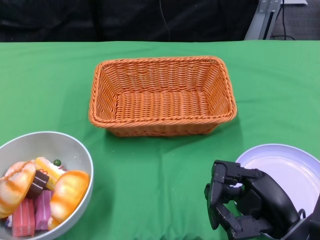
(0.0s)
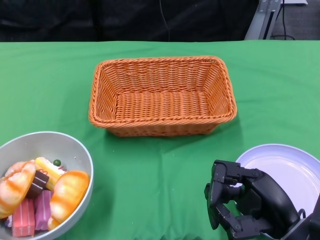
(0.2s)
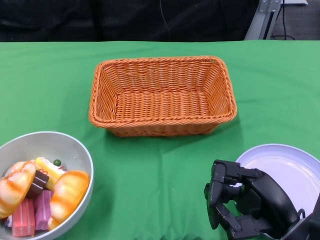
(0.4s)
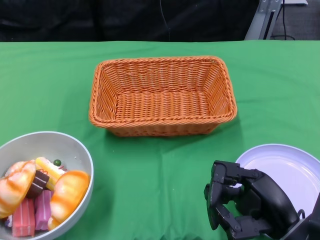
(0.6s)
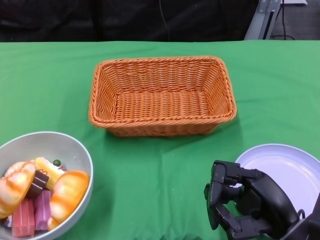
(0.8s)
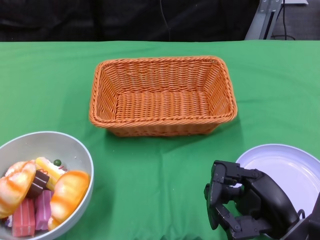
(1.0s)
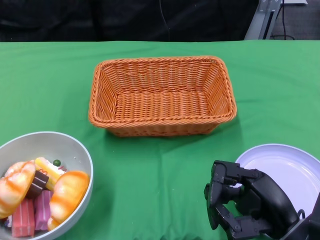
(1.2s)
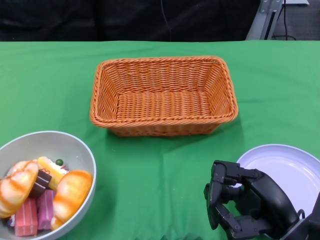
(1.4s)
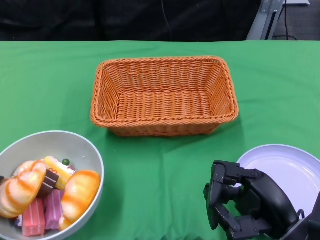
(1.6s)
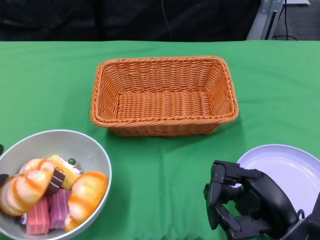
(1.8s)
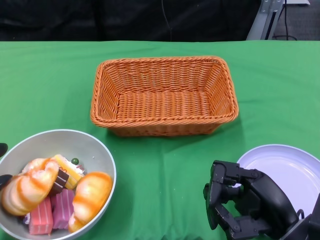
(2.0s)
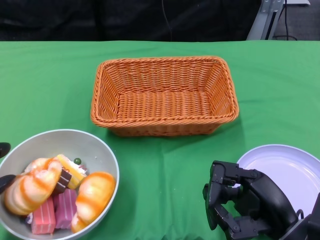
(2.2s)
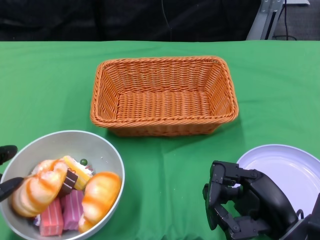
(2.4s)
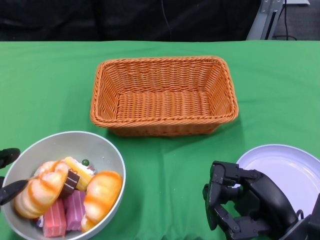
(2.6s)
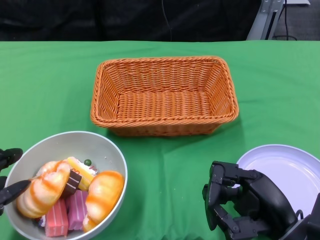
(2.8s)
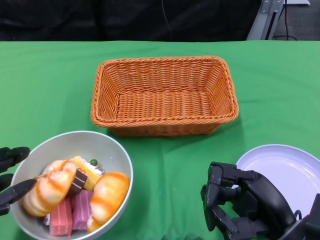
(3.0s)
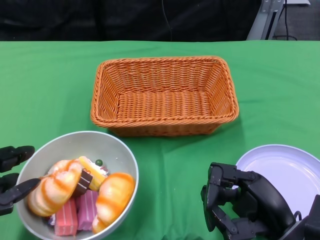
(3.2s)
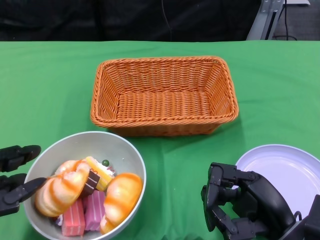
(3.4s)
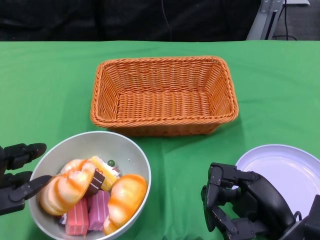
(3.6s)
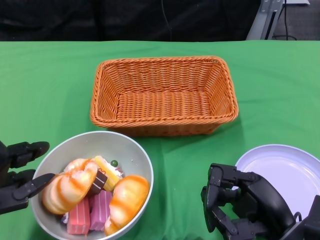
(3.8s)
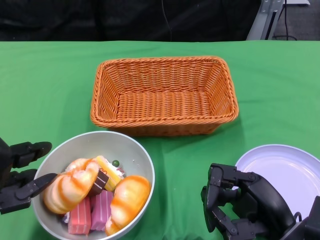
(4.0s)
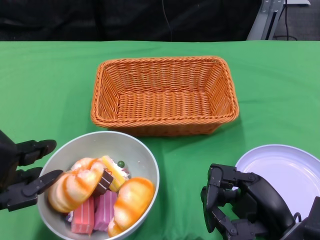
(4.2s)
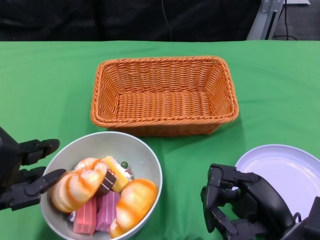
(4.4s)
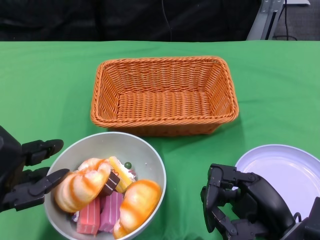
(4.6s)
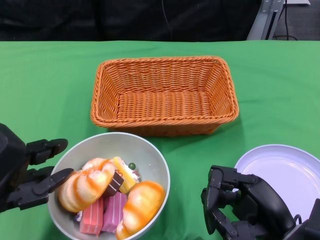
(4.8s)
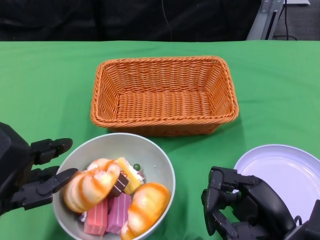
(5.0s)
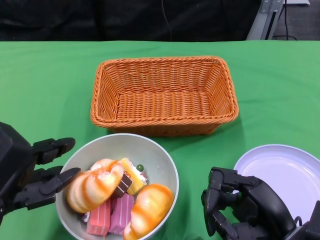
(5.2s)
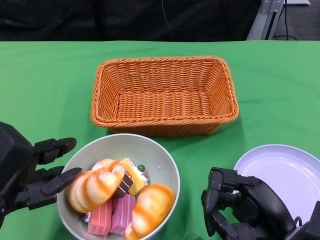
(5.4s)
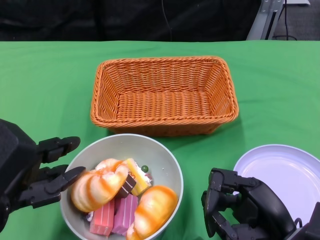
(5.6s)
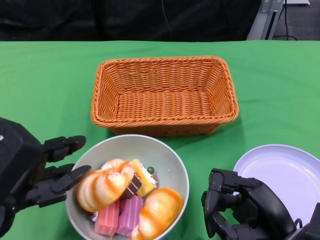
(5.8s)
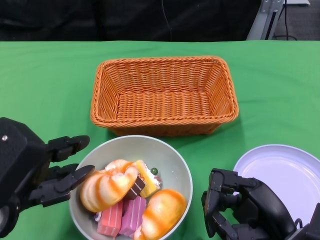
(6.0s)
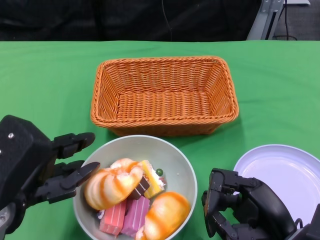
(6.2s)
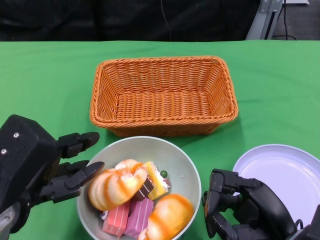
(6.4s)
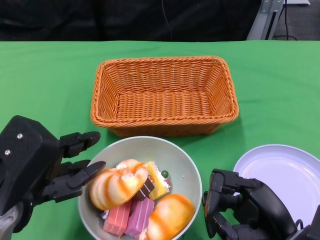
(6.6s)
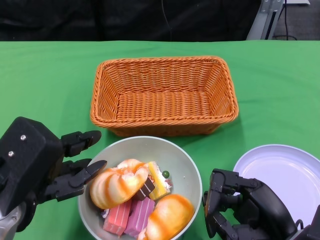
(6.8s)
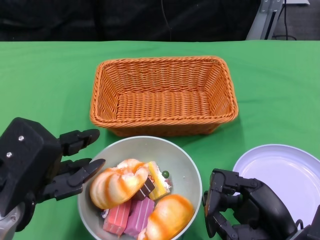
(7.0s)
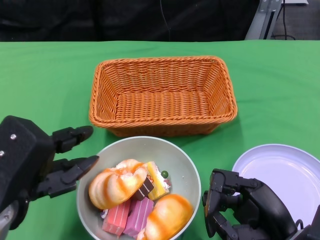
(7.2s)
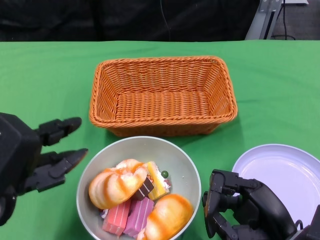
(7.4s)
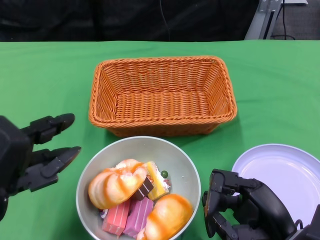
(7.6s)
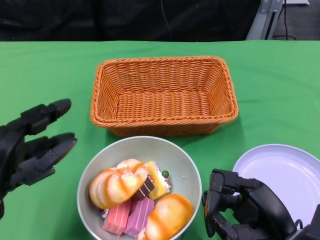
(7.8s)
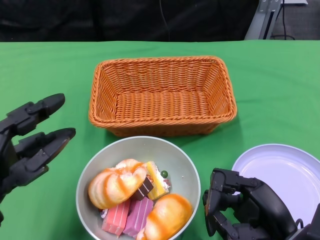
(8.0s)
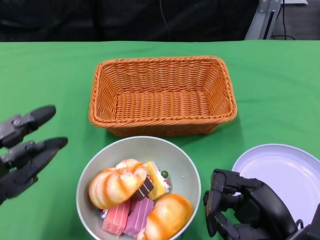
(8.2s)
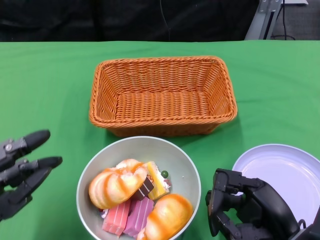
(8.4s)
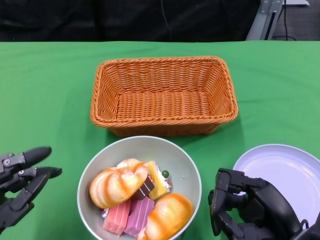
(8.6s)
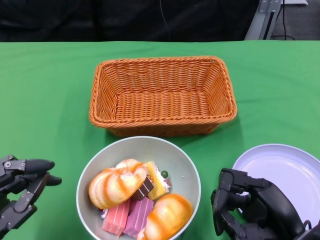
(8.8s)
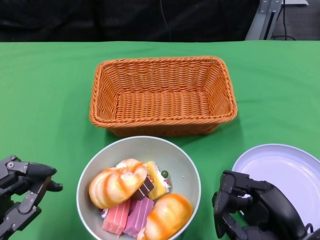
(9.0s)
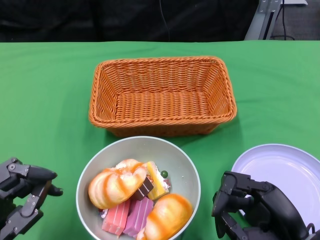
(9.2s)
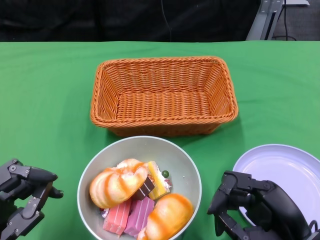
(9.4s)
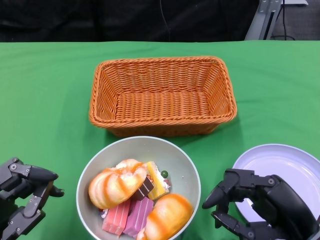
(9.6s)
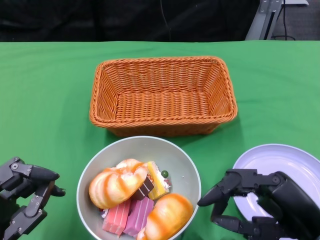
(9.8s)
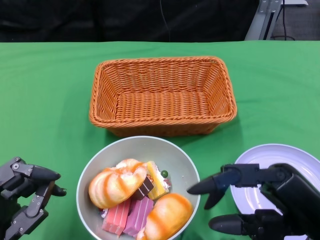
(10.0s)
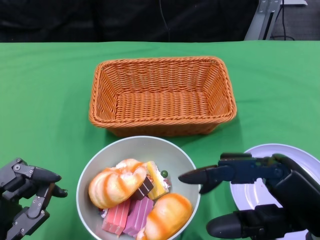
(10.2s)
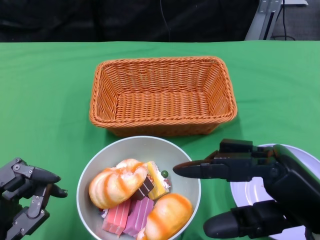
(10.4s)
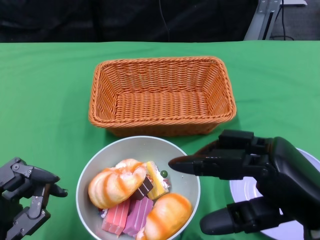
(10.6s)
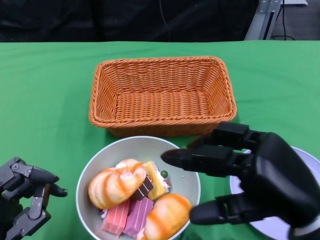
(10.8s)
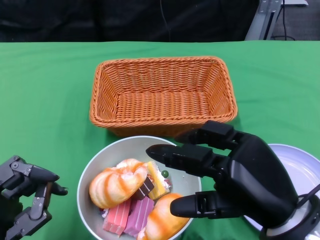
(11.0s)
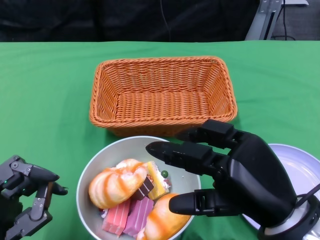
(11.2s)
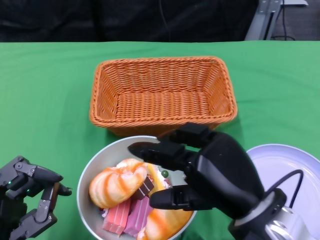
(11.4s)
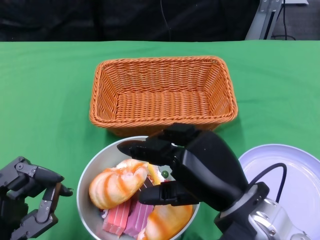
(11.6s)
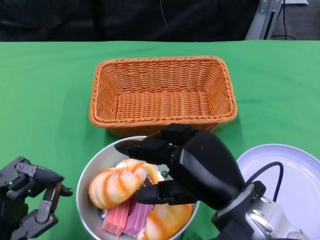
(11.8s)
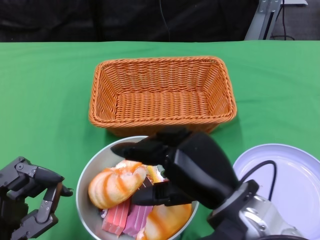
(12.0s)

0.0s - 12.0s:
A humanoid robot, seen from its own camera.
Step, 0.0s - 7.2s: Push the bowl to the center of the table using the left gripper.
1.6s - 3.0s: The hands stay close to where they were, moving slightly.
3.0s - 4.4s: The hands make only small movements.
6.0s - 7.6s: The hands move only a little.
7.6s - 9.0s: The left hand travels downward by approximately 10 cm.
9.0s - 10.4s: The right hand heads upward, covering roughly 10 cm.
10.4s - 12.0s: The right hand moves to the left, roughly 10 cm.

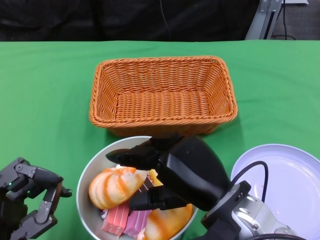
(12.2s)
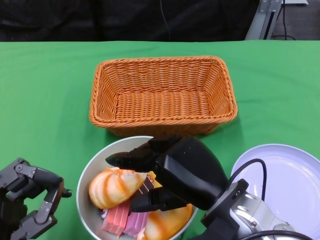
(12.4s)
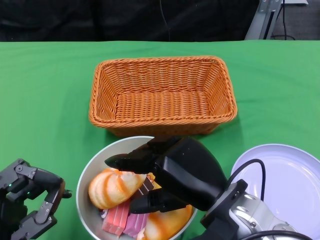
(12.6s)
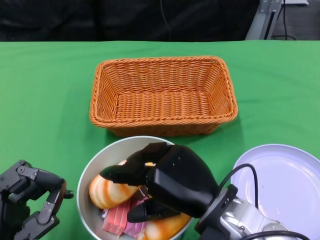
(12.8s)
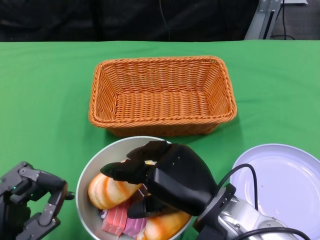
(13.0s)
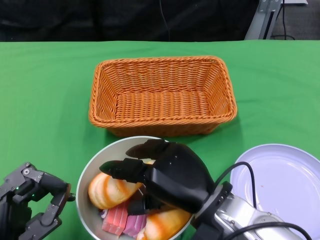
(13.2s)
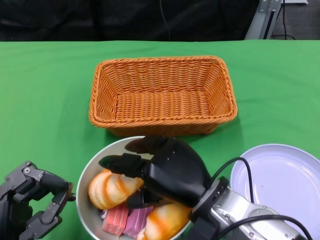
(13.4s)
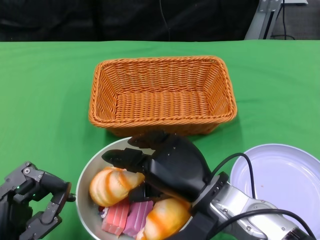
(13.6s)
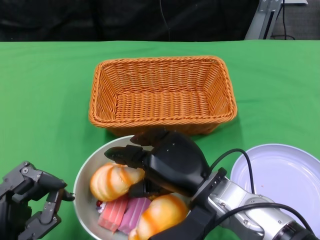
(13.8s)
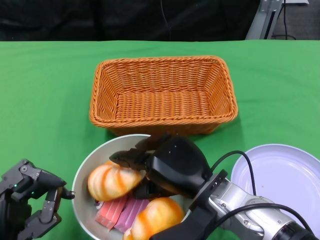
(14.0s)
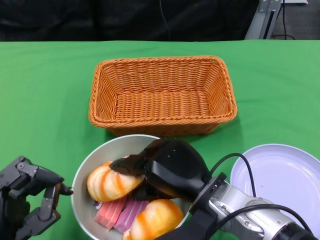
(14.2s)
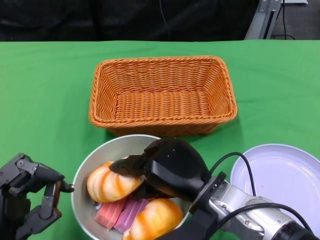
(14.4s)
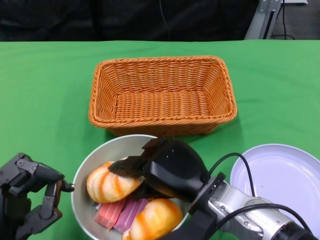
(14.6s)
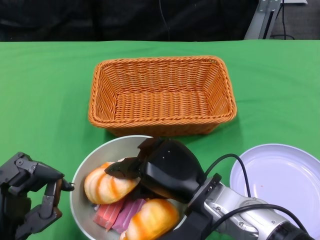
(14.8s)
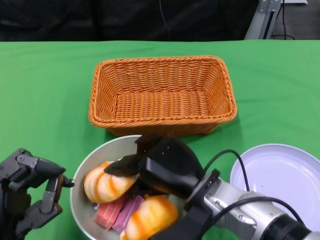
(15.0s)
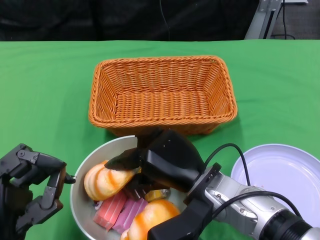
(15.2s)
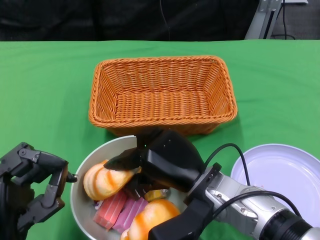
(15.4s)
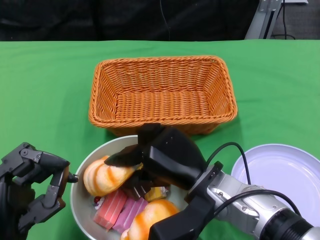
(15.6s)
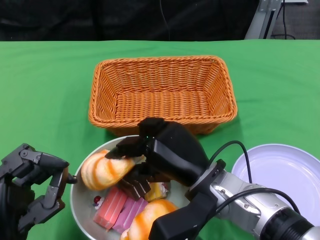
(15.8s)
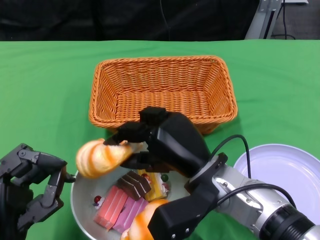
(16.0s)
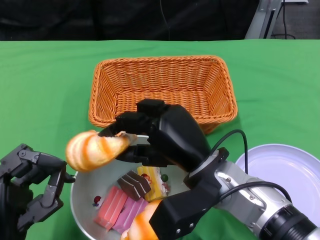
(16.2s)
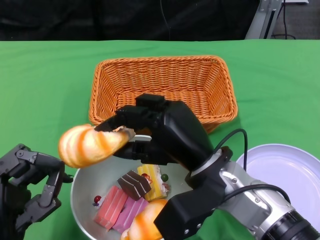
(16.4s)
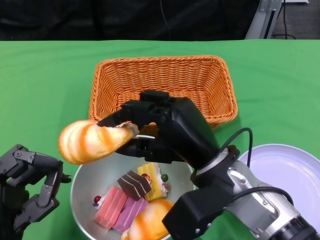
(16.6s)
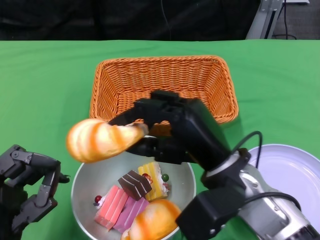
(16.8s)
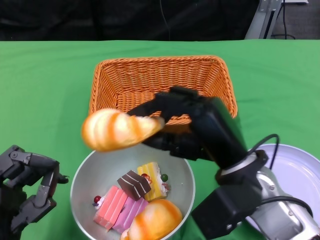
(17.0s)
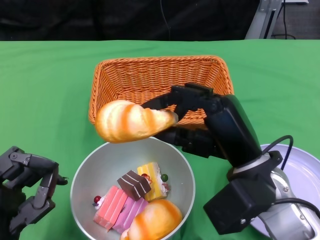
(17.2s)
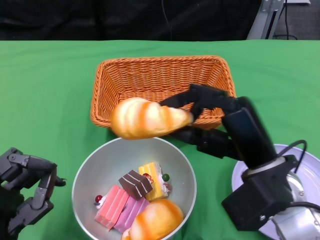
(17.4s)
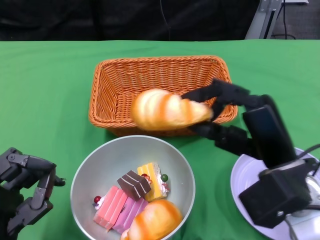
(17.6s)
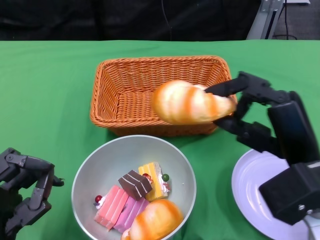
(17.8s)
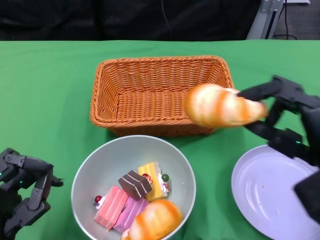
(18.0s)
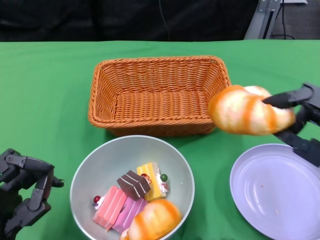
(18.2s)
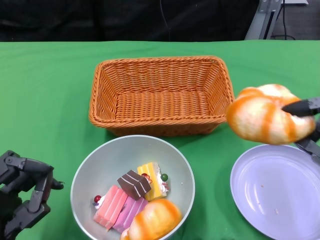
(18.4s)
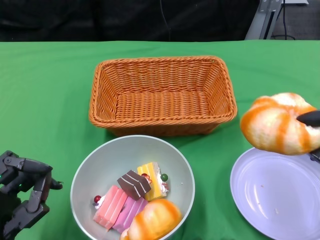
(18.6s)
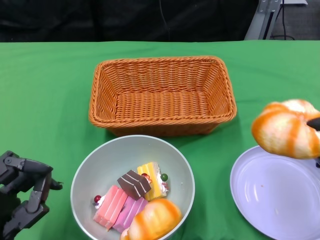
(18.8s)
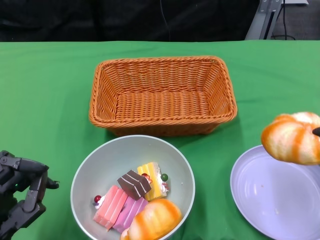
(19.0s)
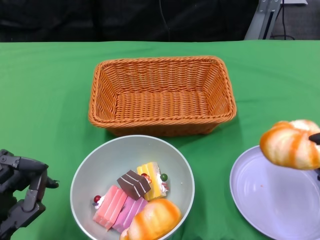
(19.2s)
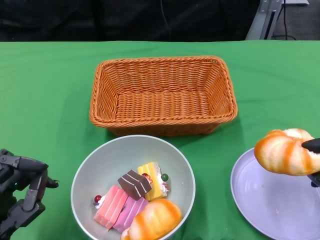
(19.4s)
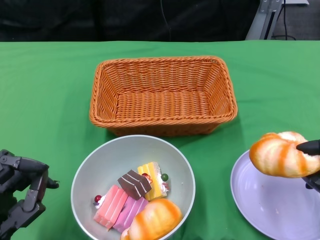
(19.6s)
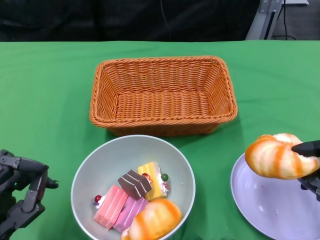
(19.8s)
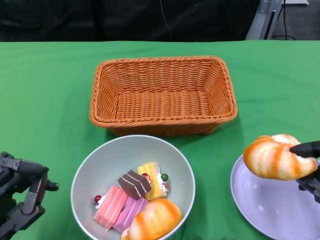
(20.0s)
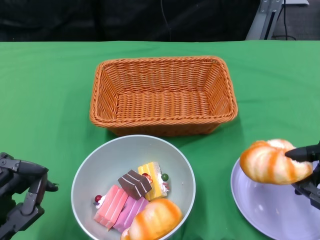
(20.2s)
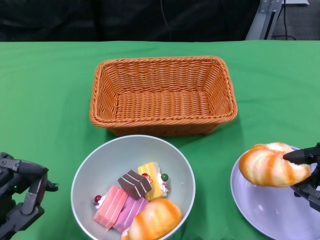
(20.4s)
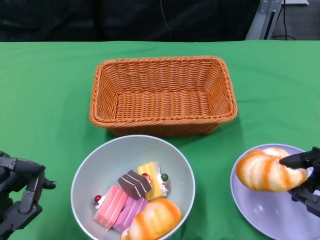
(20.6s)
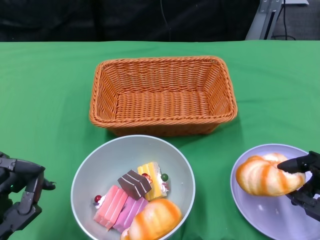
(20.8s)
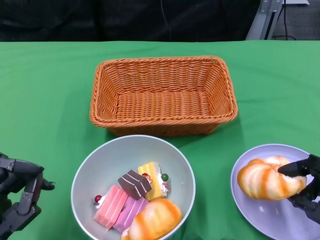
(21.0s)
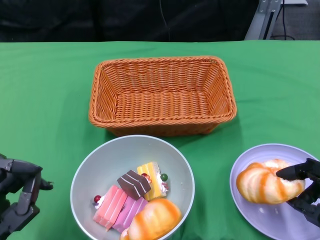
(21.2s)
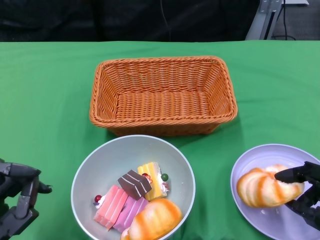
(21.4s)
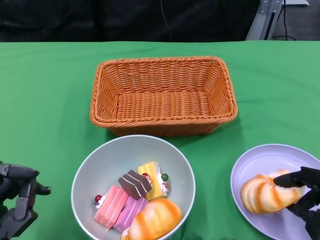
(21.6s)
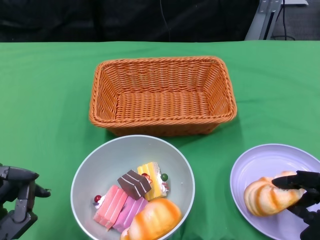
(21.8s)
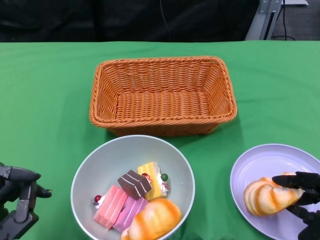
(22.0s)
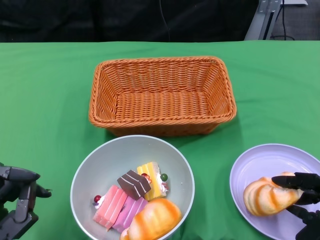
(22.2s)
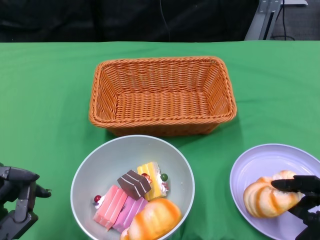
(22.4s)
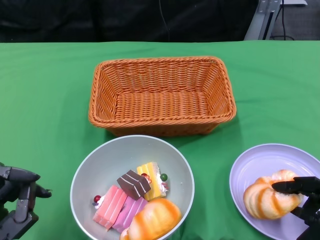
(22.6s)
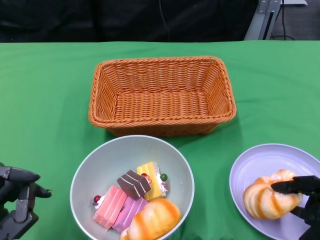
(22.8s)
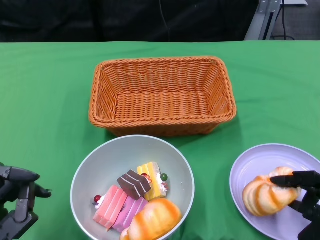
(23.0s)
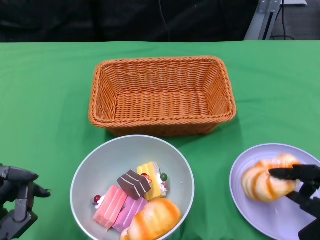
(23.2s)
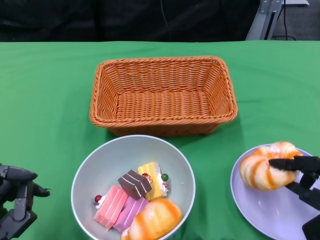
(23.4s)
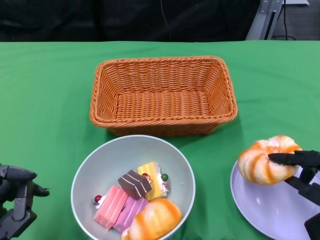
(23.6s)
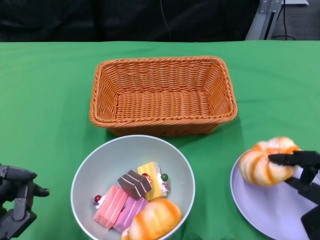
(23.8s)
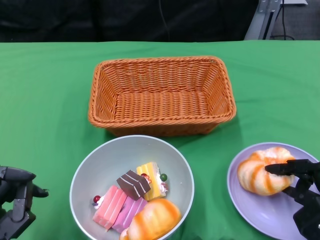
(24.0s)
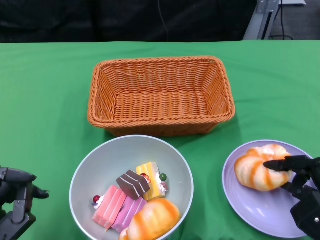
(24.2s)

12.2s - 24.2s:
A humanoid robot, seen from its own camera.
12.2s - 13.8s: The right hand changes place by approximately 5 cm.
13.8s - 15.2s: The hands move only a little.
15.2s - 16.6s: The right hand travels upward by approximately 5 cm.
16.6s - 18.2s: The right hand heads to the right, covering about 15 cm.
18.2s - 19.8s: The right hand moves downward, approximately 5 cm.
19.8s - 21.2s: There are only small adjustments of the hands.
21.2s - 22.6s: The hands make only small movements.
22.6s - 24.2s: The right hand shifts some 5 cm forward.
